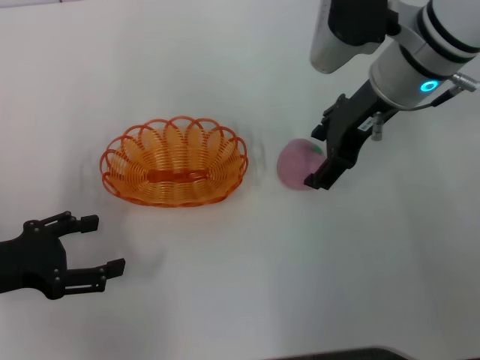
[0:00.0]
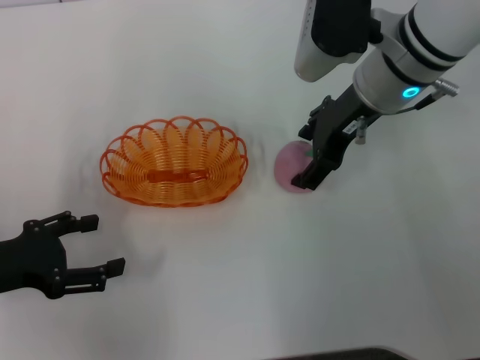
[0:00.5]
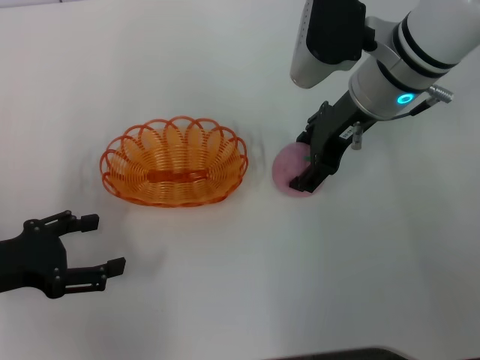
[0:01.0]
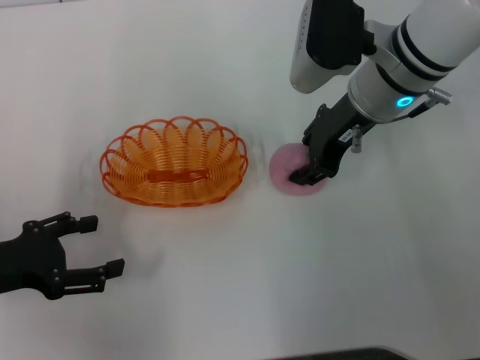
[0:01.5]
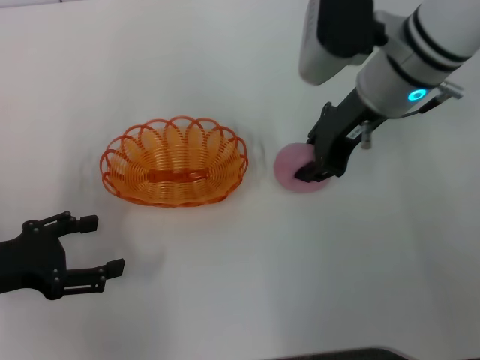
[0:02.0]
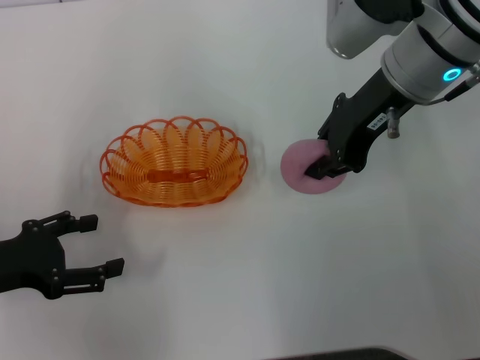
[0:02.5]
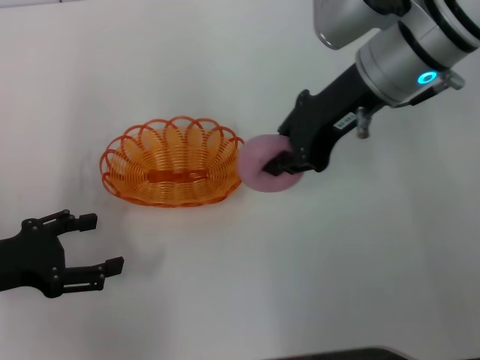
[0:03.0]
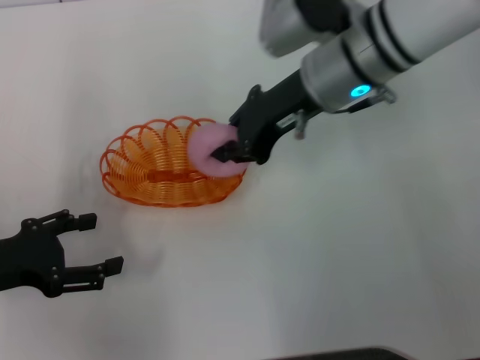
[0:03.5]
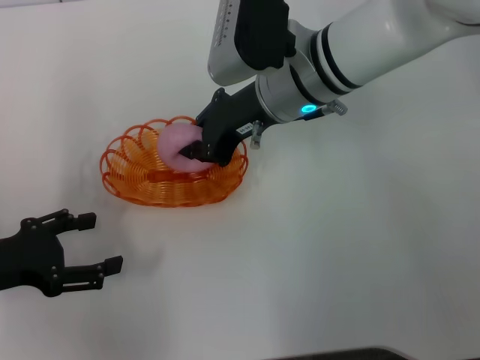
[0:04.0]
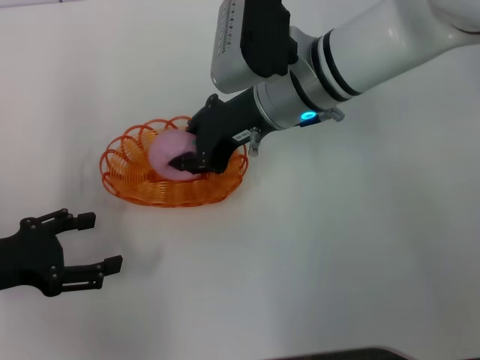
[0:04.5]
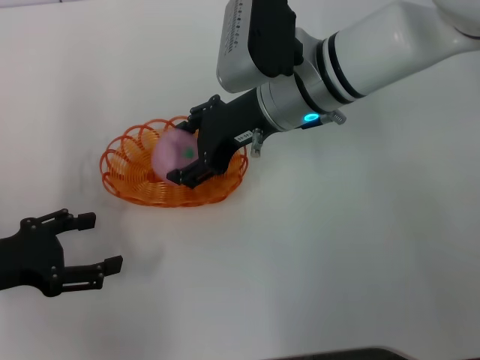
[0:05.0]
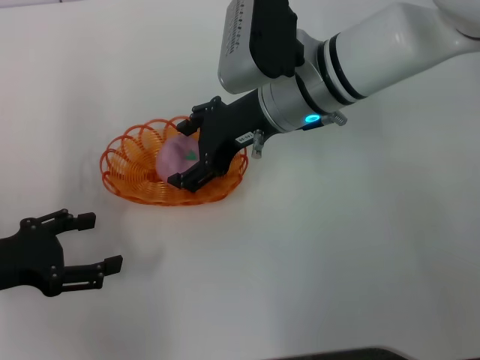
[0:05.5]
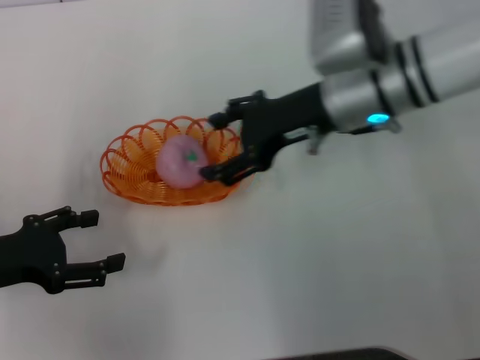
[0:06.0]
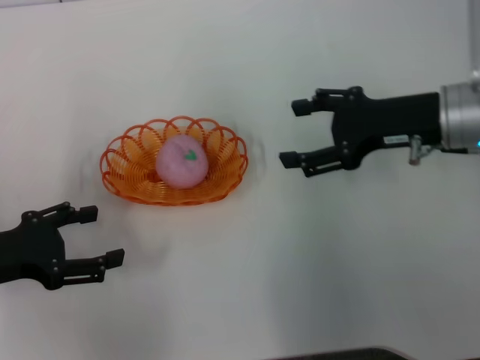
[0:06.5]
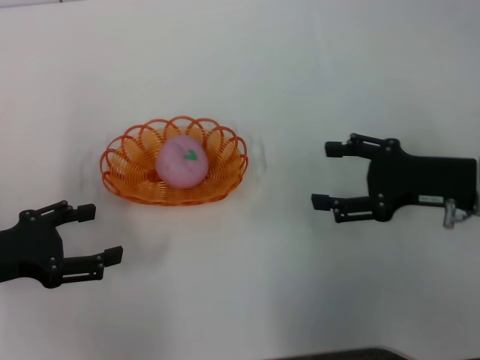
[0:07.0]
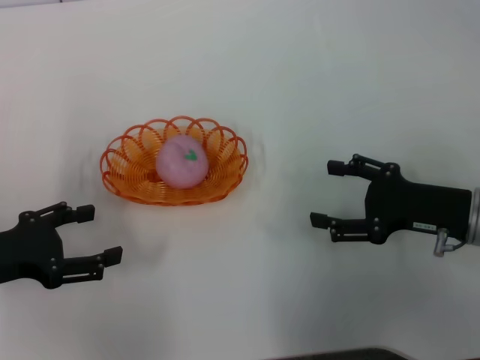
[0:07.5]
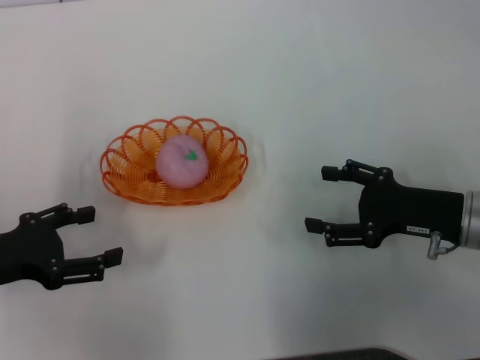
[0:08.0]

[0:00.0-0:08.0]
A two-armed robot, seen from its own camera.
Step, 0:00.0 to 0:02.5: Pick up the peach with the right gripper.
Step, 0:03.0 to 0:06.0: Place the peach into the basket with the right gripper.
0:00.0 to 0:02.0: The right gripper closes.
0:02.0 to 0:04.0: The right gripper moves to the left, roughly 10 cm.
0:04.0 to 0:06.0: The right gripper shifts approximately 5 cm to the right, and opens up.
0:06.0 to 0:08.0: The right gripper heads to the right, backward and downward, covering approximately 20 cm.
